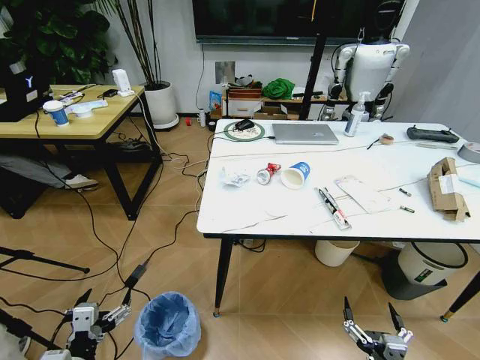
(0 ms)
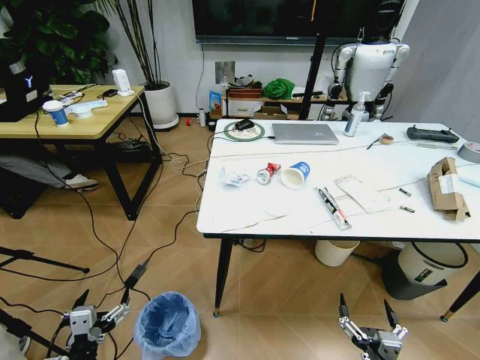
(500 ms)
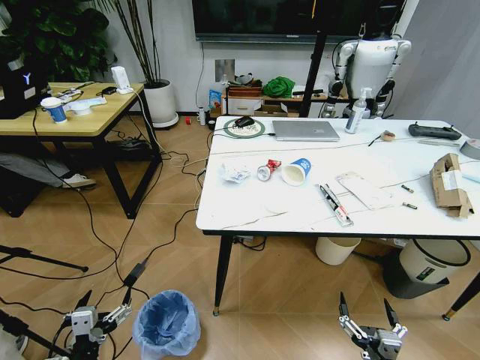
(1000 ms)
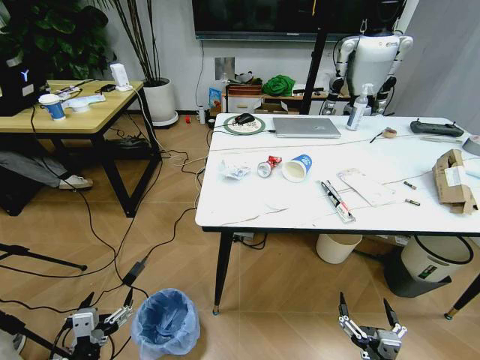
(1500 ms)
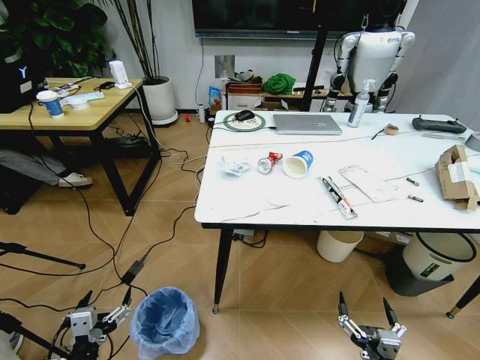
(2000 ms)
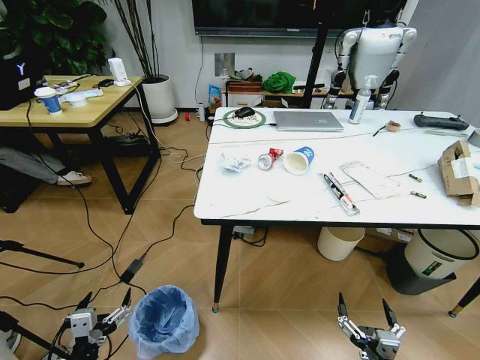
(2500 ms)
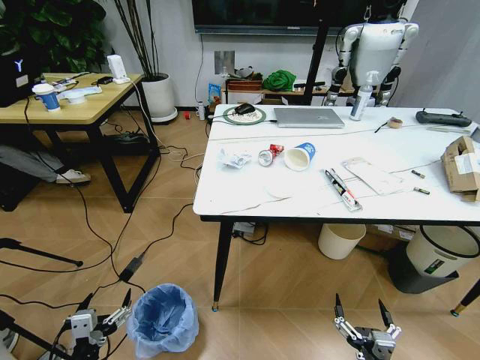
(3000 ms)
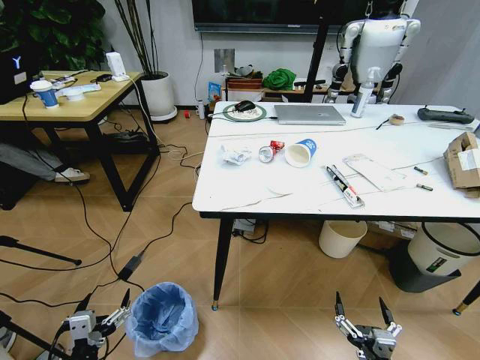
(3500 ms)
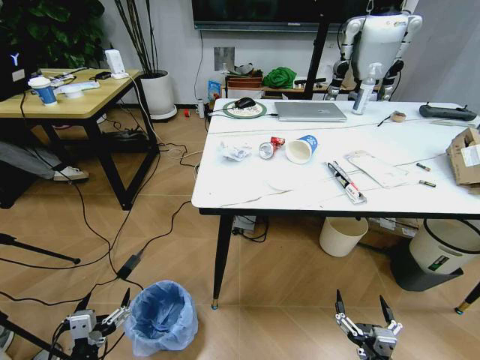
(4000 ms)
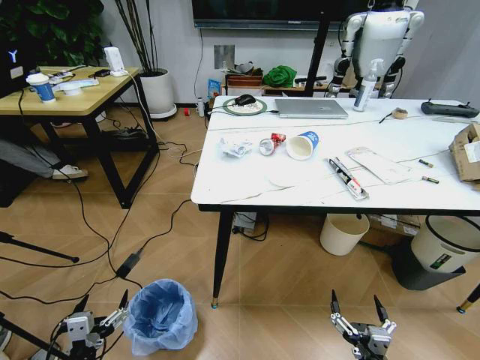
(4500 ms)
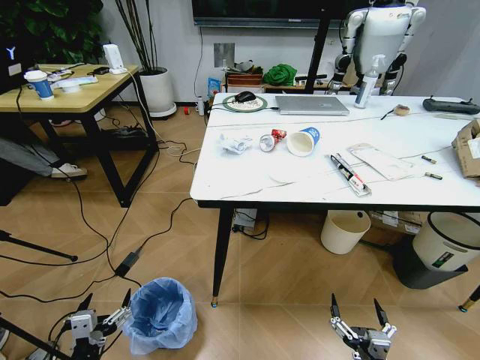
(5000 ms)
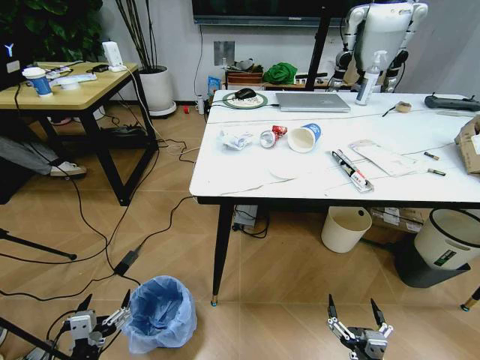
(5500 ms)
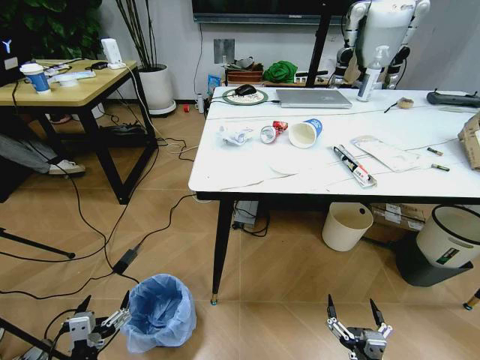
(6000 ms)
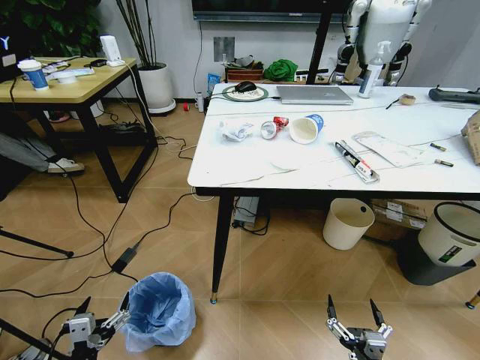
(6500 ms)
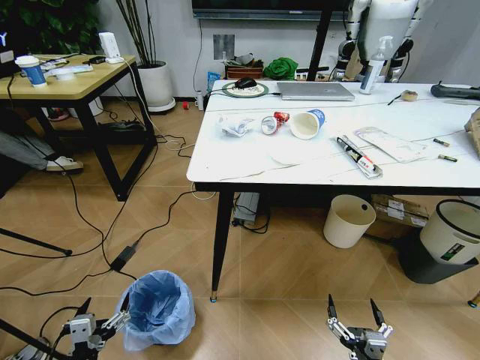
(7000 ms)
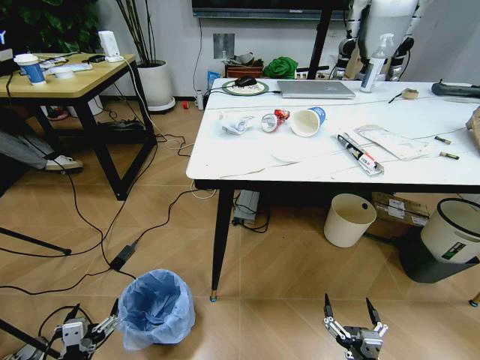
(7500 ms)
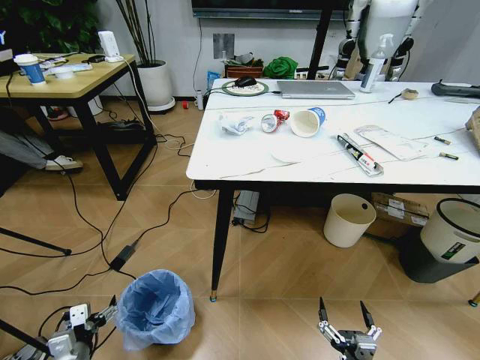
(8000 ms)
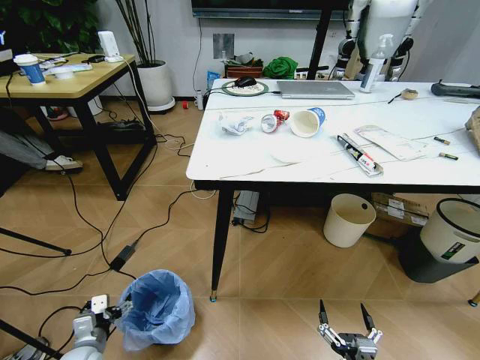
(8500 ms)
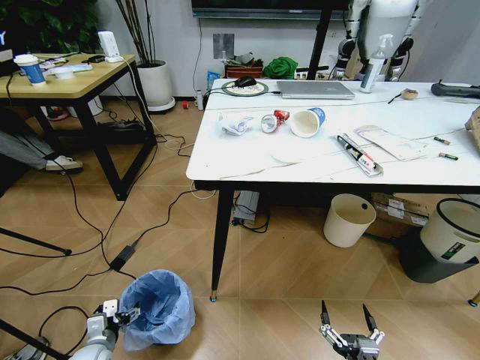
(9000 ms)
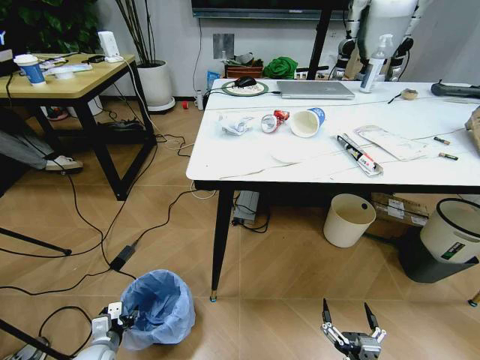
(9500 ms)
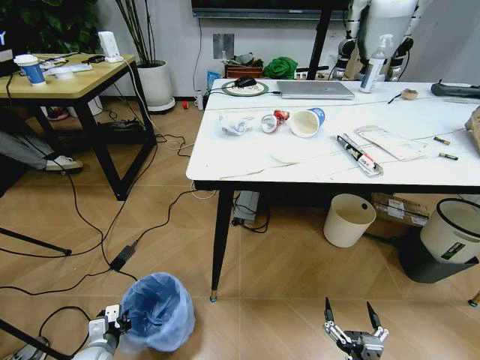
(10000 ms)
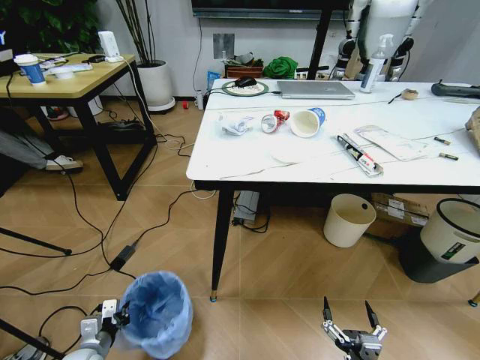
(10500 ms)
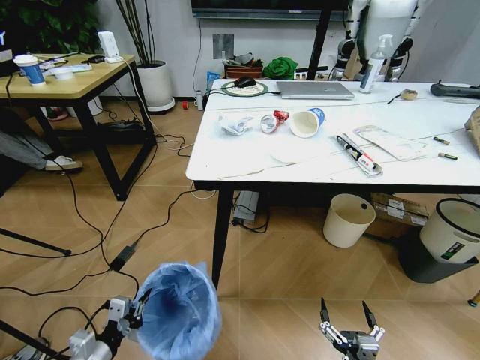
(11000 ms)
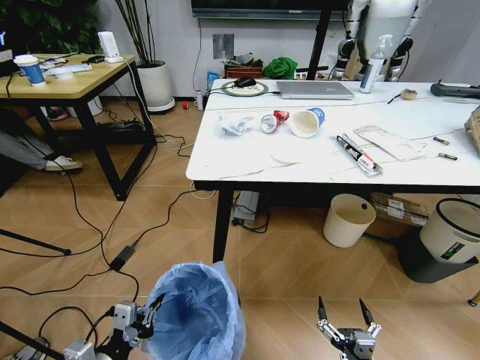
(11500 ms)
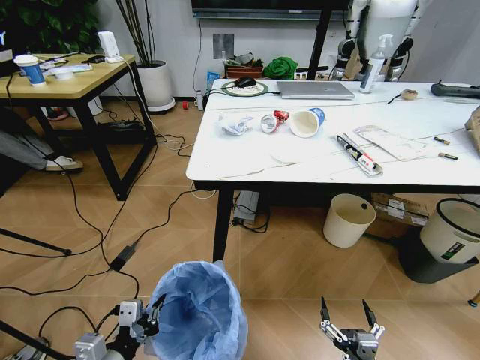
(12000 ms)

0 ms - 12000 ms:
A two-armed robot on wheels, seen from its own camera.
Task of the whole recording: Pick up the trash bin and place the trash from the table into it.
6000 ms - 8000 ms: The left gripper shifts roughly 10 cm forward, downward and to the left.
8000 ms - 10000 ms: The left gripper goes about 10 cm downward and forward, and closes its fingers.
10000 ms - 12000 ms: The left gripper shifts some 25 cm upward, to the right and backward.

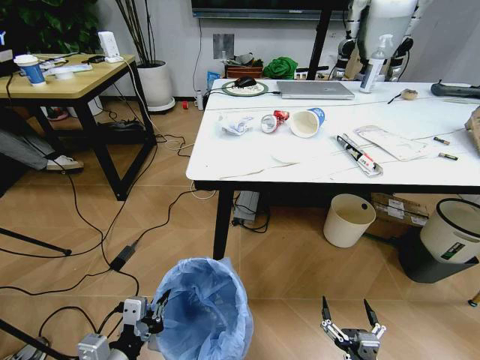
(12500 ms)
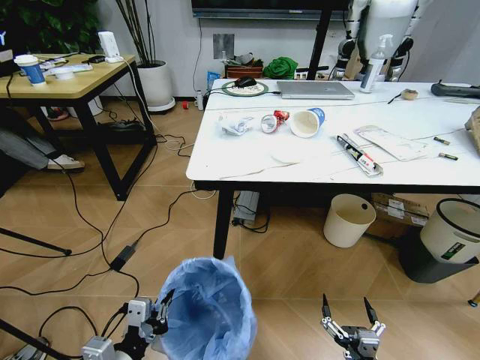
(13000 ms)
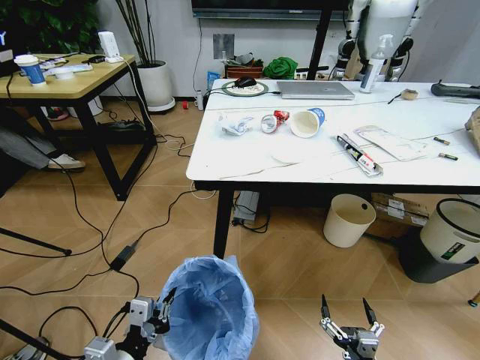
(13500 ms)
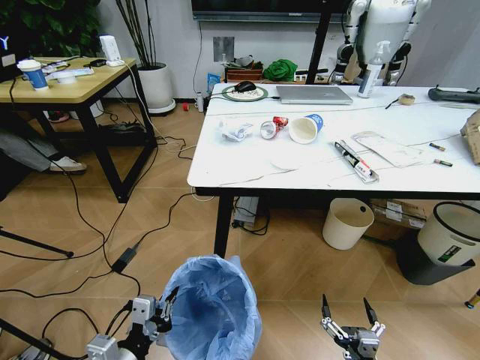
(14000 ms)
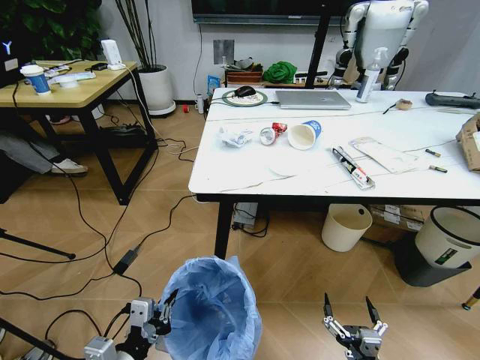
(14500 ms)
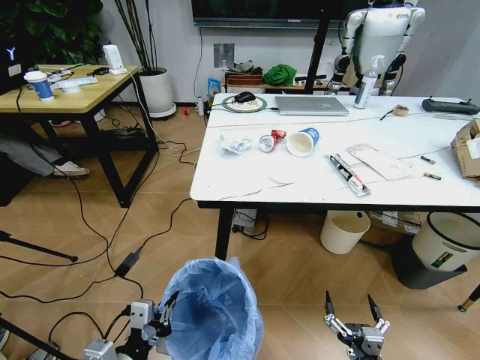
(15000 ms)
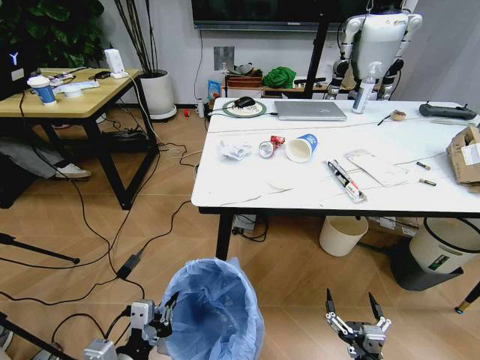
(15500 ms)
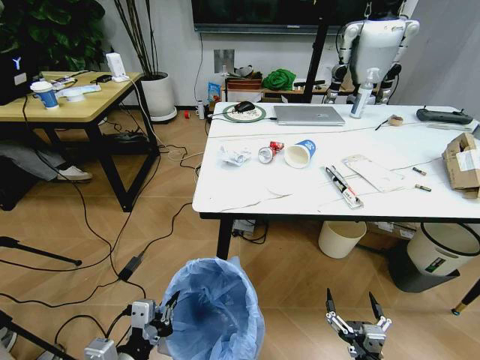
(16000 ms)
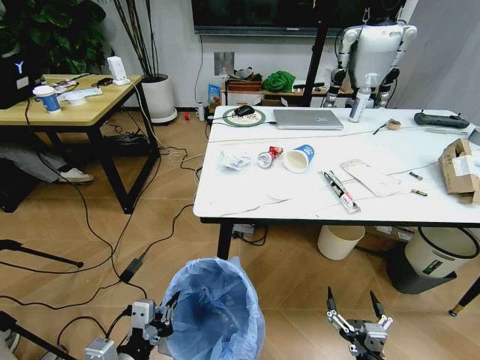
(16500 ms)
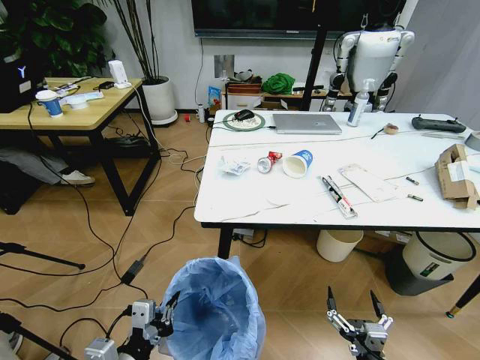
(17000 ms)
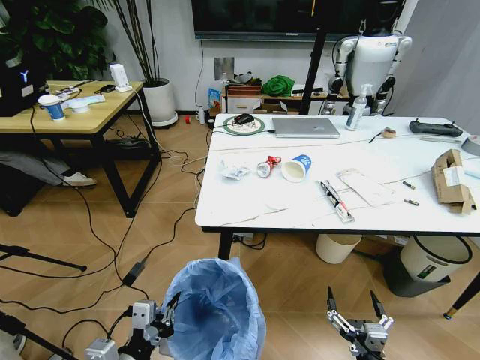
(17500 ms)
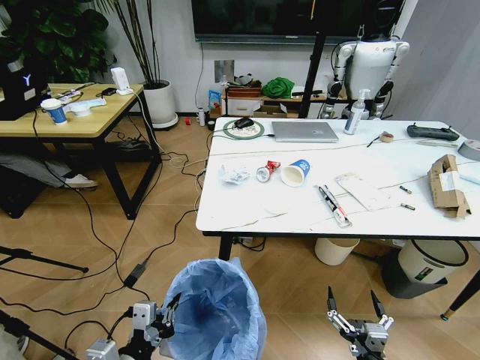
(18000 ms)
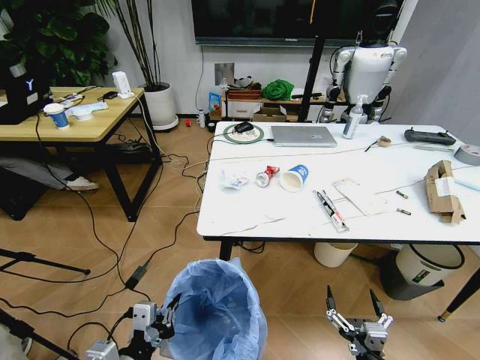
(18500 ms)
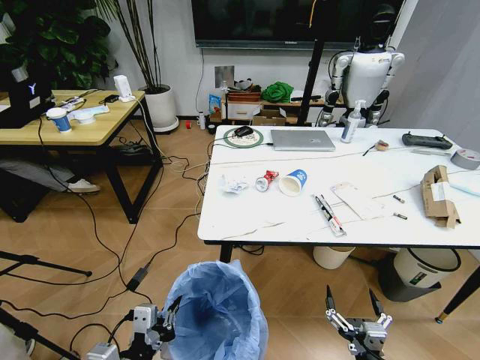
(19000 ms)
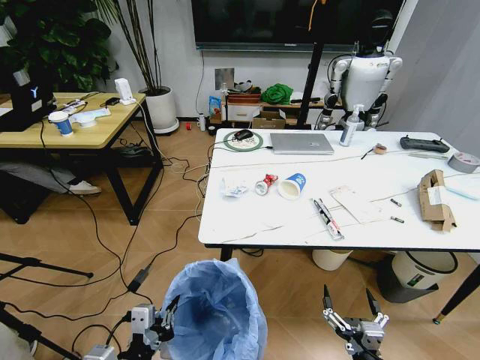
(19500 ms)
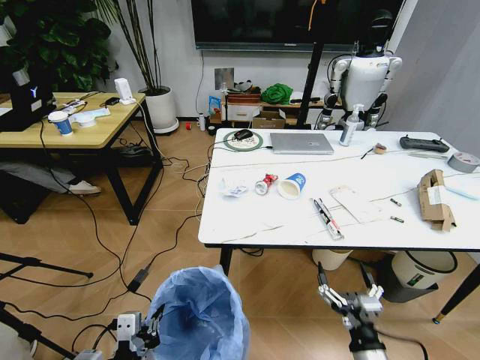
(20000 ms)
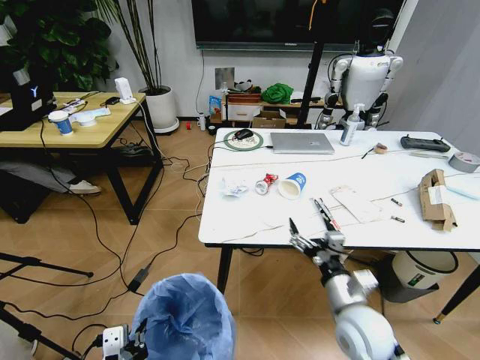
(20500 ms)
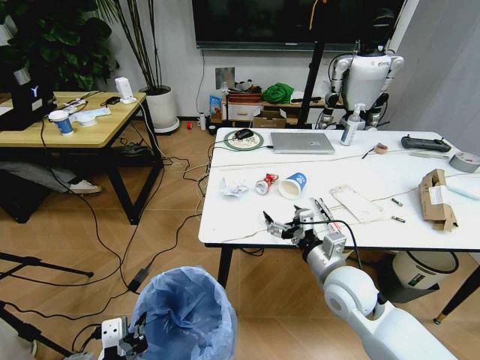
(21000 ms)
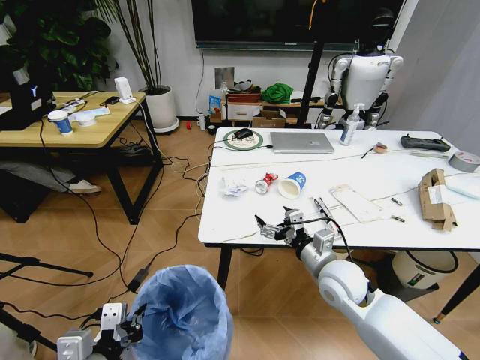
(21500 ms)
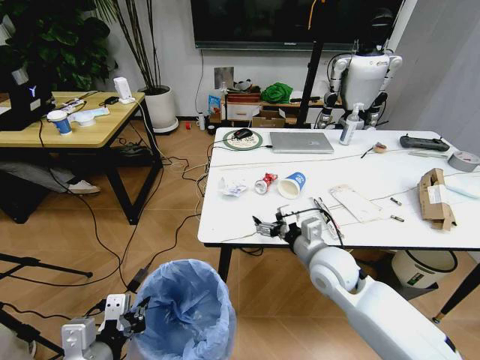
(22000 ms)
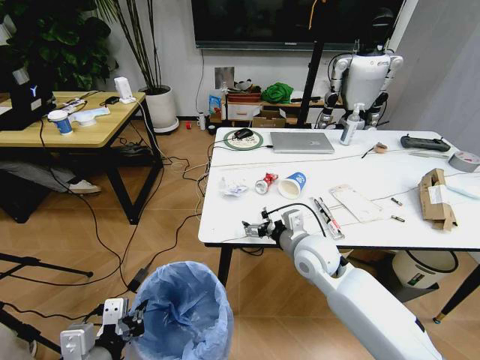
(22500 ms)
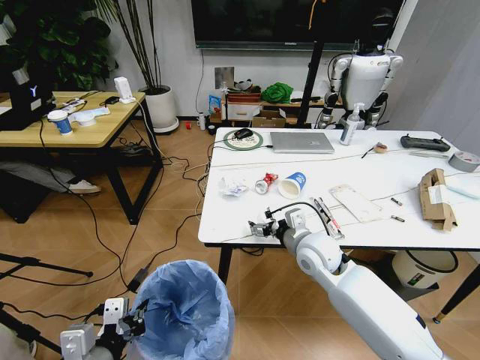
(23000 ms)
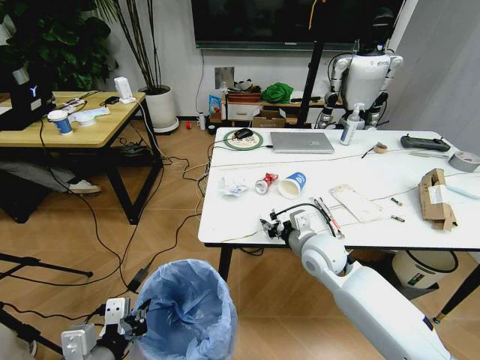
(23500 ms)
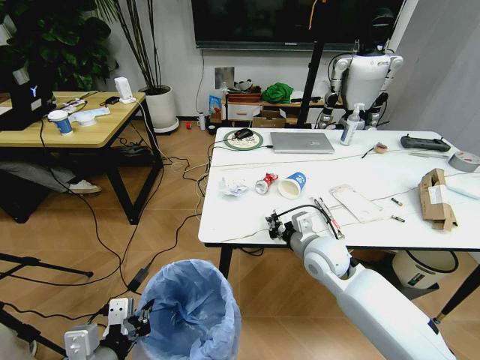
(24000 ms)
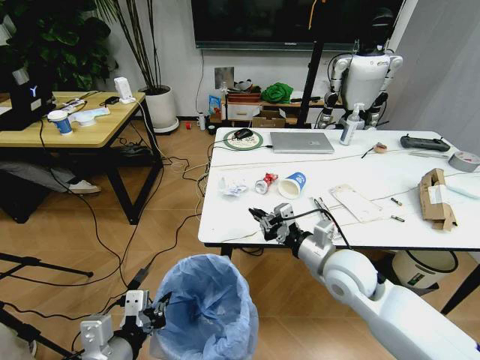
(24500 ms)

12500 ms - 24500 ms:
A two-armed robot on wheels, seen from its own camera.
Task of the whole recording: Pick up the trash bin and place the trash from the table into it.
18500 ms - 20500 ms: The right gripper heads forward and upward, covering some 20 cm.
20500 ms - 22500 ms: The right gripper heads forward and to the left, covering about 15 cm; the left gripper is displaced forward by approximately 5 cm.
22500 ms - 24500 ms: The right gripper travels backward by roughly 5 cm, and closes up.

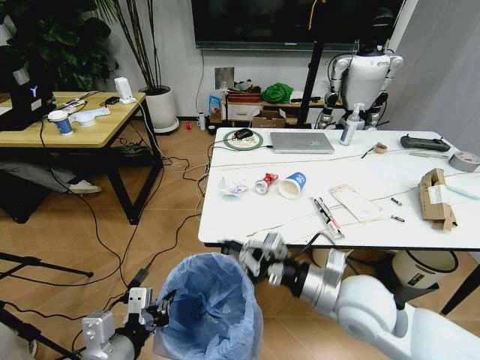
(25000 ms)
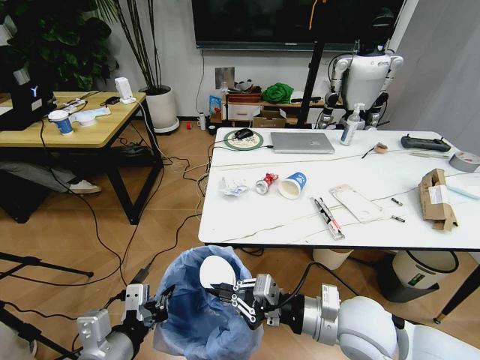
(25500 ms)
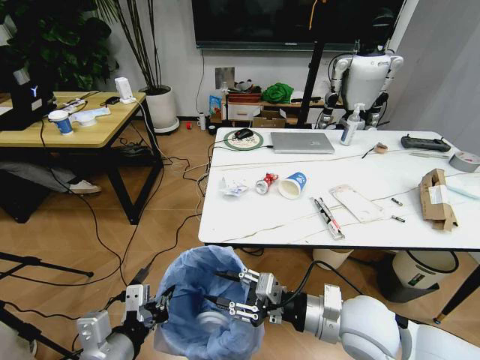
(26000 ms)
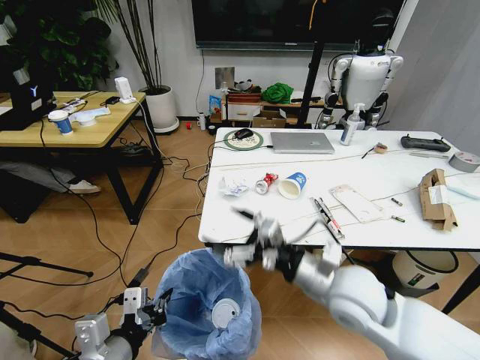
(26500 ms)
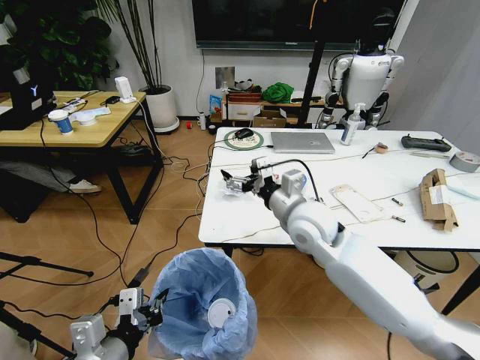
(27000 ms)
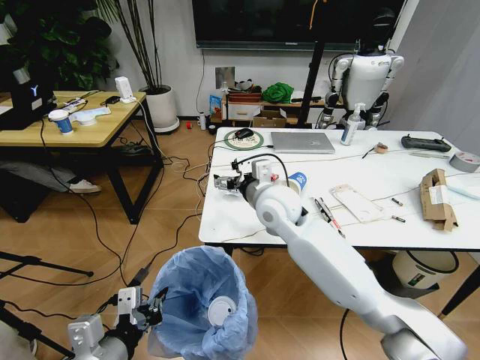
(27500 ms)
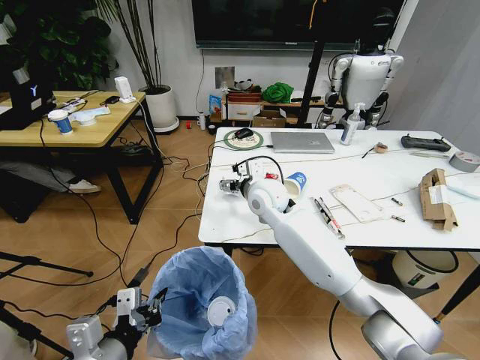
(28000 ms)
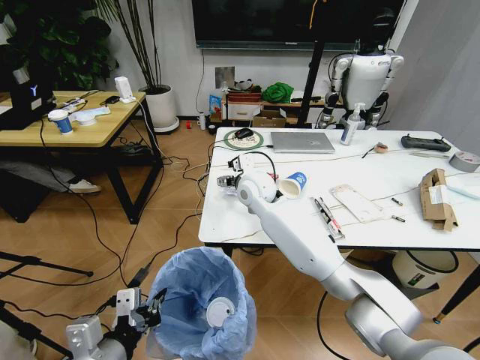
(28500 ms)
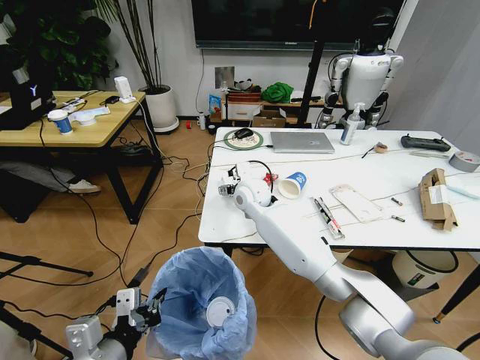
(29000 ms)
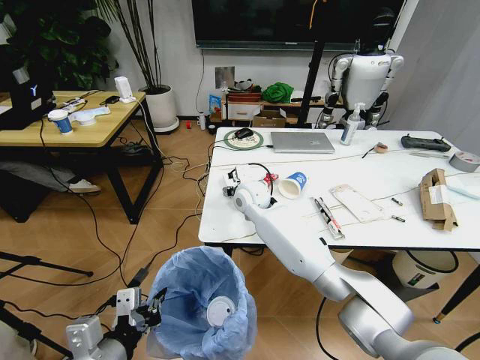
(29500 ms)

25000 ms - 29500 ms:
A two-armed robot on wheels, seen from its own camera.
Task of the whole recording: Pick up the trash bin and place the trash from the table into it.
25000 ms - 27000 ms: The right gripper is displaced forward and to the left by roughly 15 cm, and opens.
27000 ms - 29500 ms: The right gripper shifts roughly 20 cm forward, to the left and downward.
